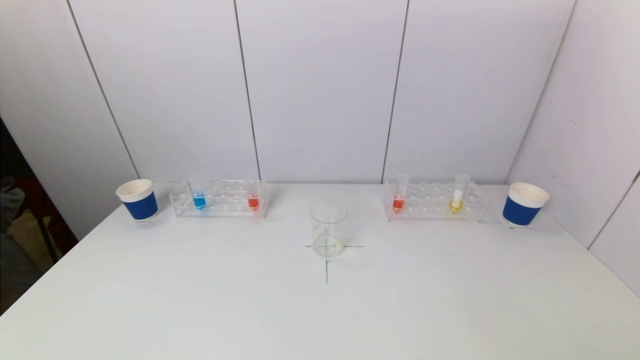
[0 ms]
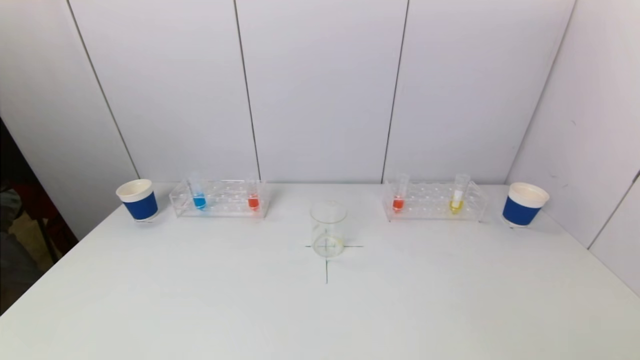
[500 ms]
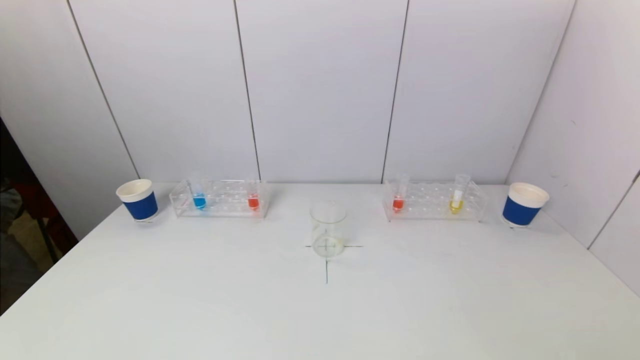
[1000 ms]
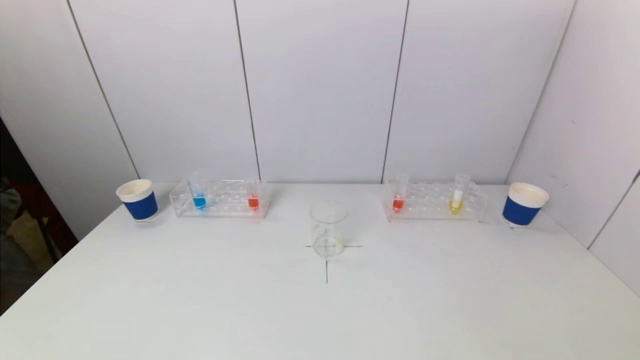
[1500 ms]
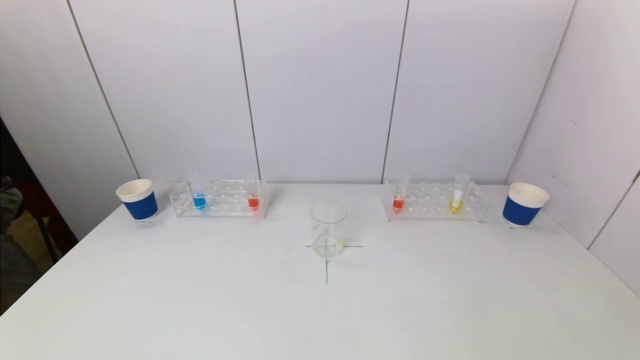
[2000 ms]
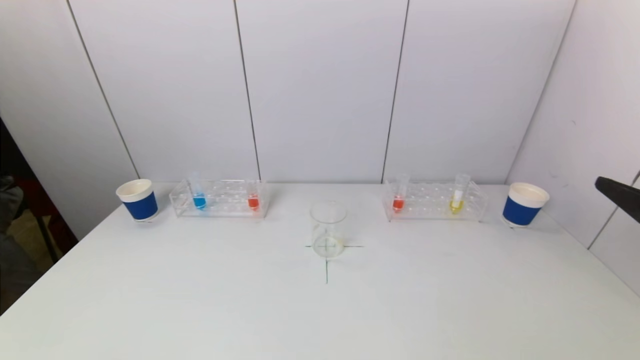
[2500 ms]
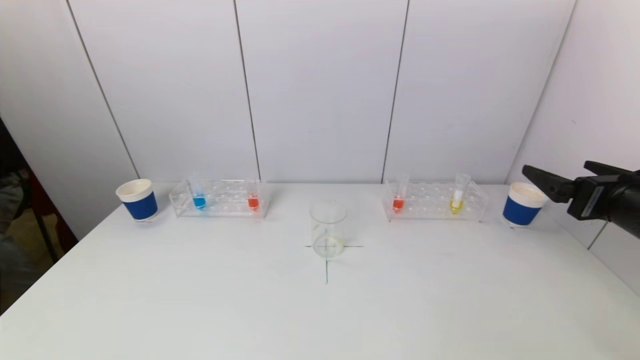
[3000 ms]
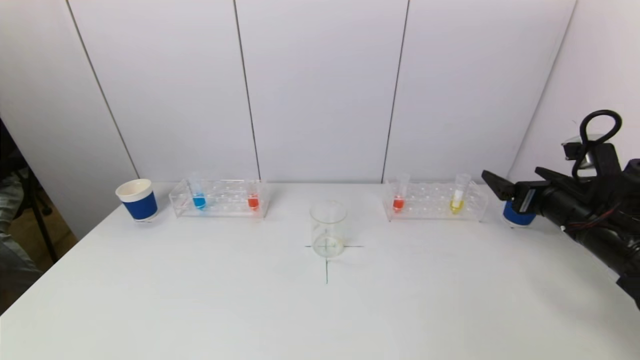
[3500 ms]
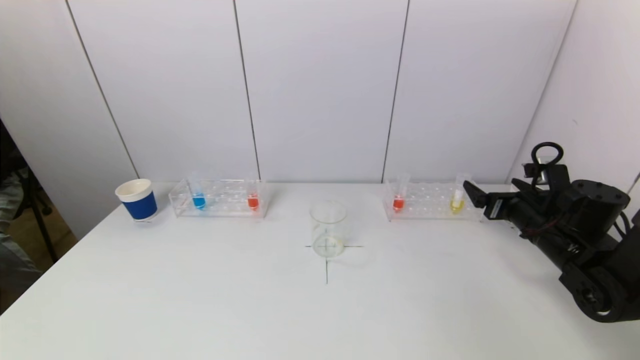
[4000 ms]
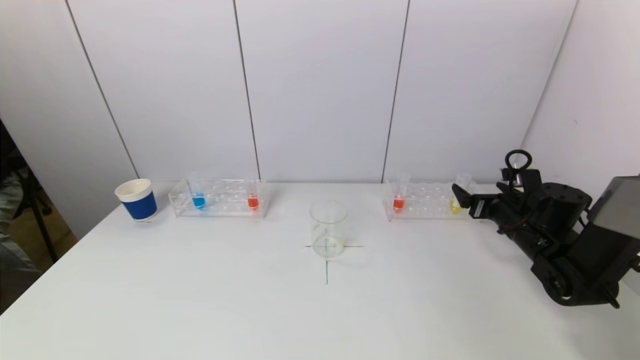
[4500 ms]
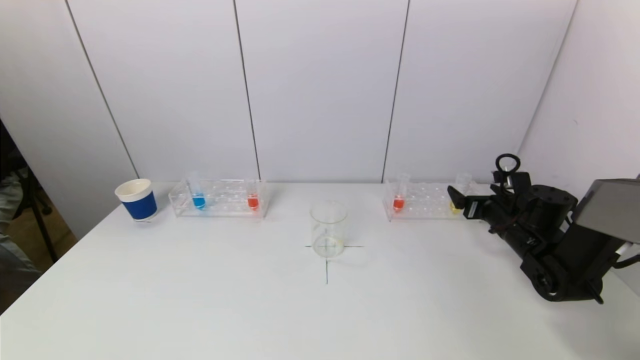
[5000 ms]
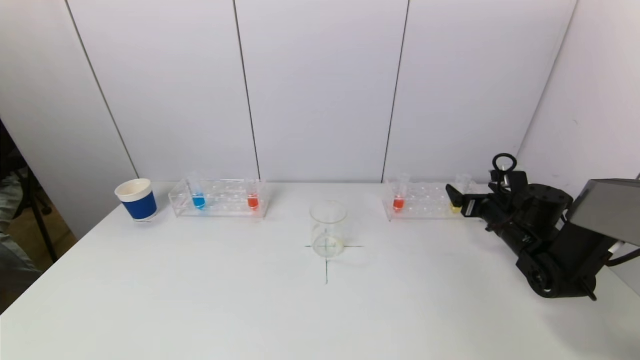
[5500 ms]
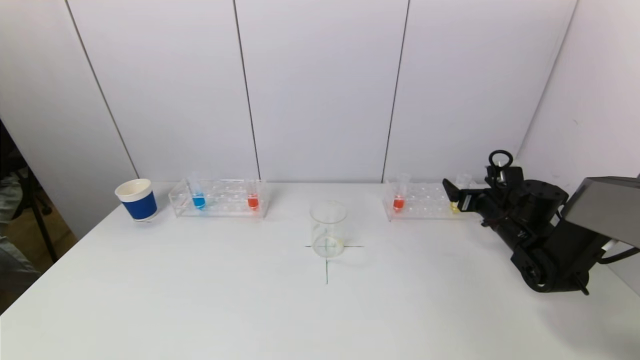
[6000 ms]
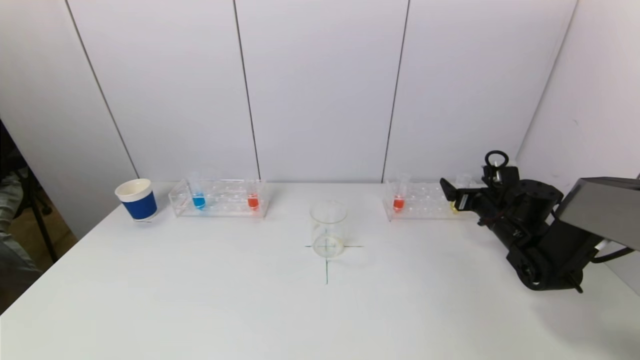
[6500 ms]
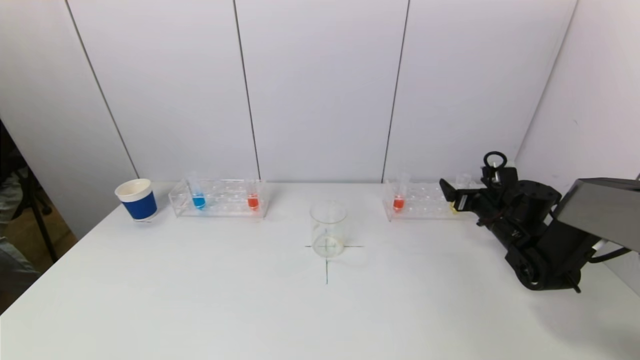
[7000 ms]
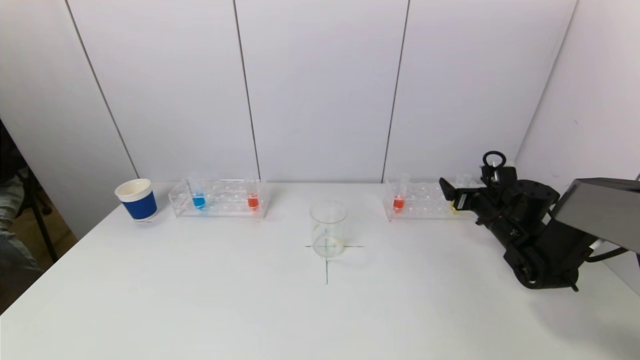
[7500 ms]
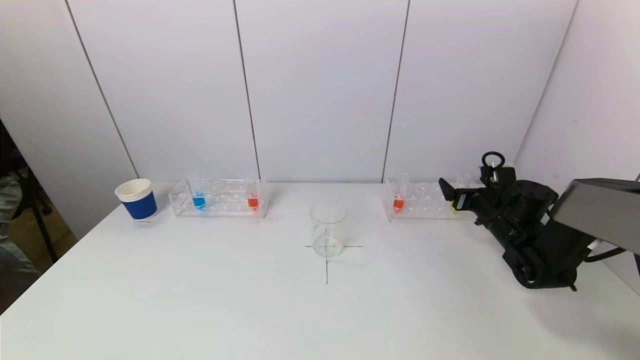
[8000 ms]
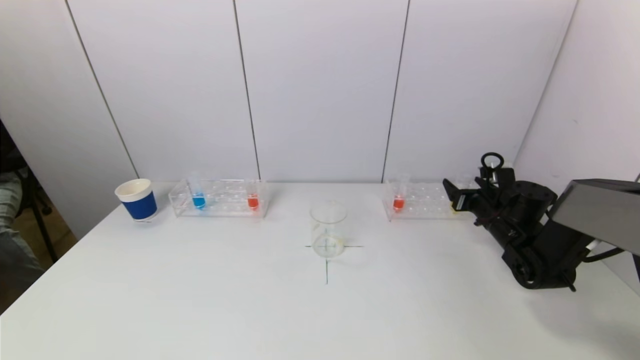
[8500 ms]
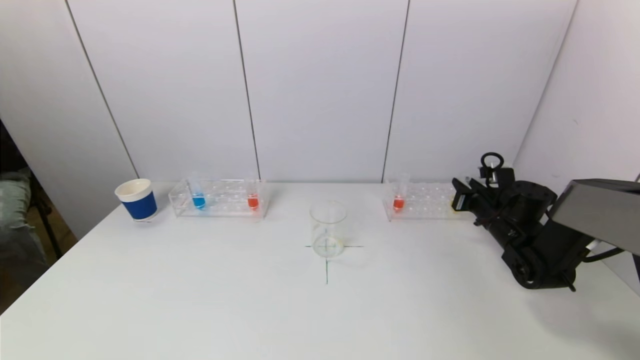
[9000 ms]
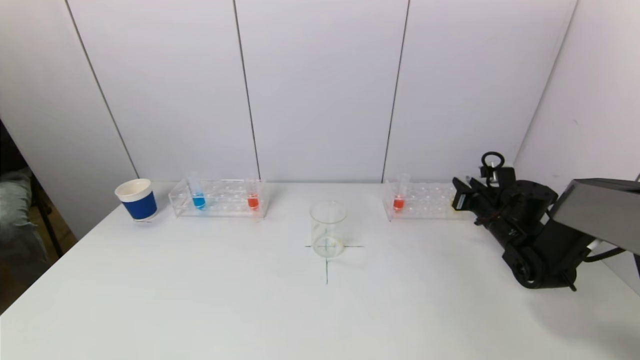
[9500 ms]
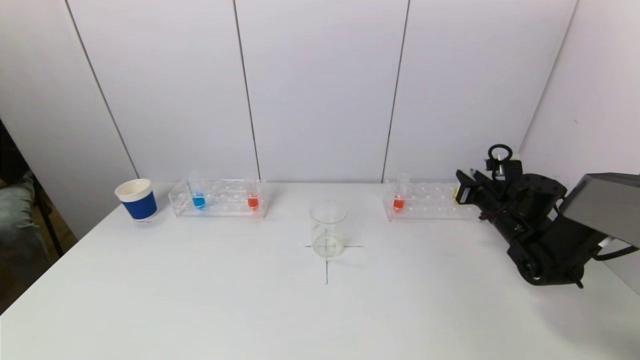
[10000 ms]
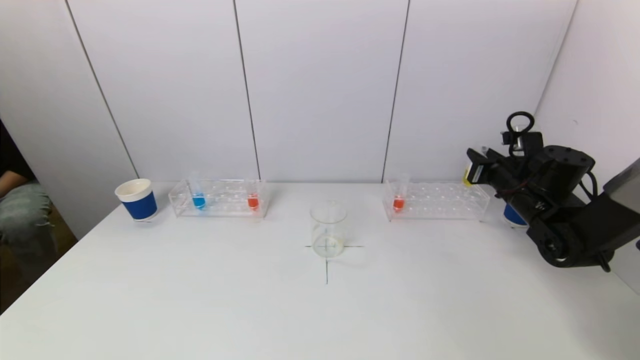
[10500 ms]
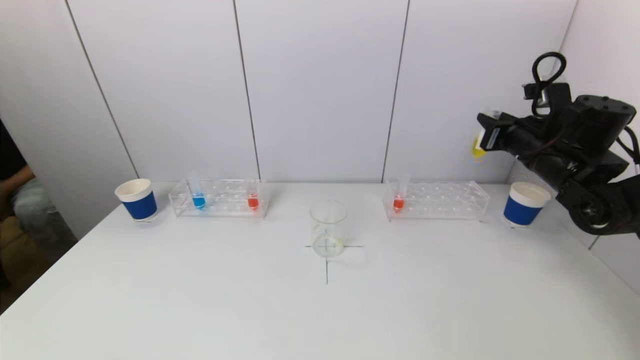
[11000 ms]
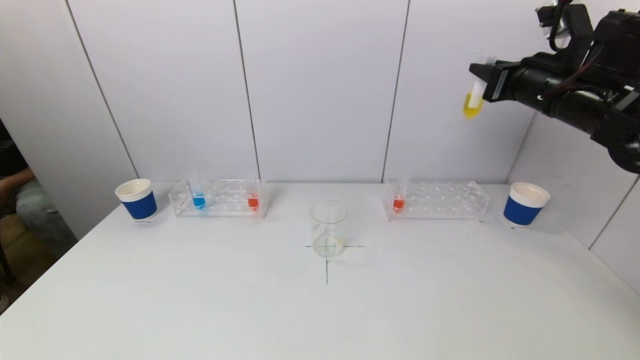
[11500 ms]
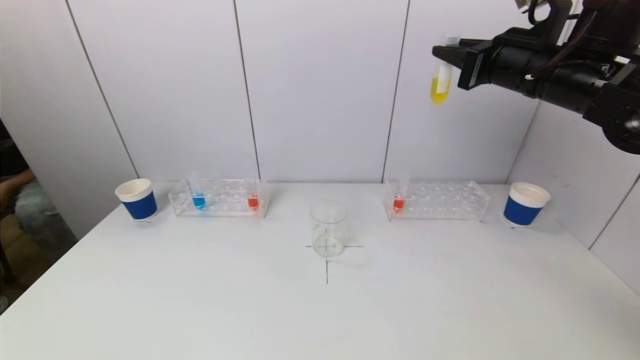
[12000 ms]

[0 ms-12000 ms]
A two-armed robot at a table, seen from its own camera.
Task of the whole recording: pick up a test tube with pigment on left test tube rack and a test tube with pigment on right test tube rack by grippers and pour them into the beaker.
Step, 0 ms to 9000 ms: Grasp the yellow reagent with the right gripper.
2000 ms to 4000 ms: The right gripper goes roughly 35 cm forward and downward.
4000 ms to 6000 ms: The right gripper heads forward, covering approximately 5 cm.
6000 ms to 8000 ms: The grippers move only a little.
8000 ms to 10000 ms: The right gripper closes.
10000 ms to 12000 ms: The right gripper travels upward by some 25 cm.

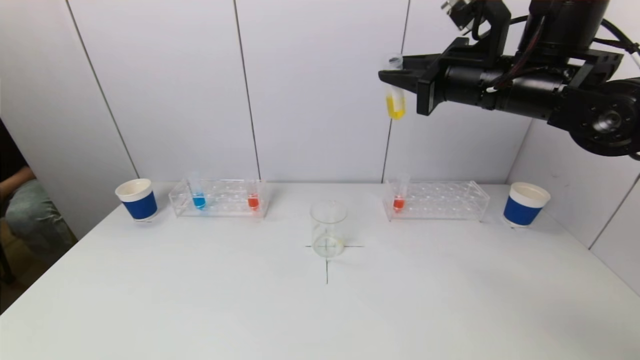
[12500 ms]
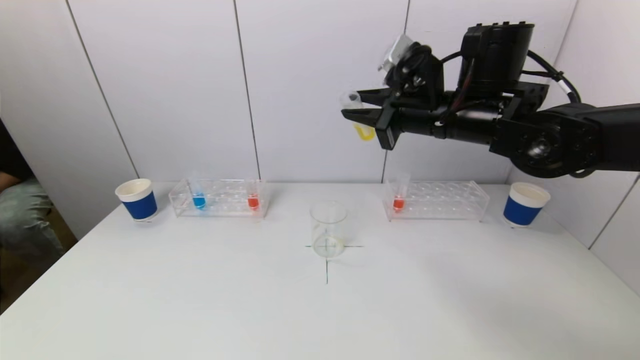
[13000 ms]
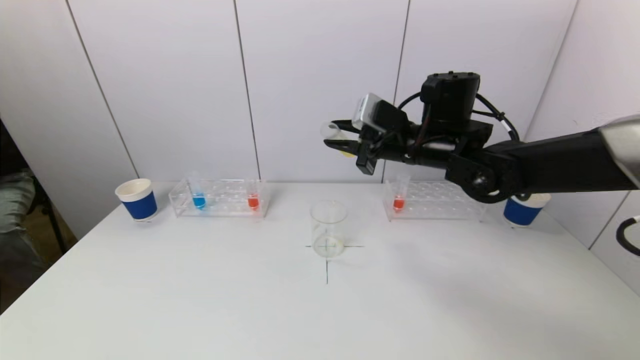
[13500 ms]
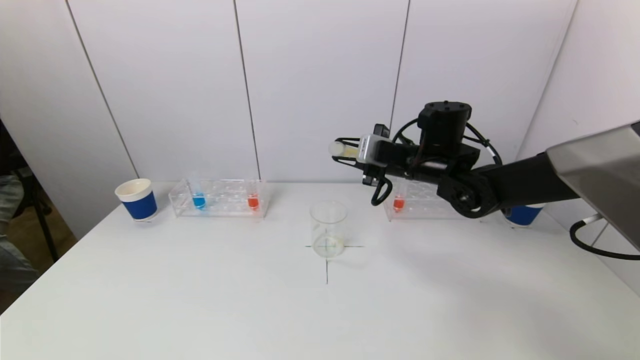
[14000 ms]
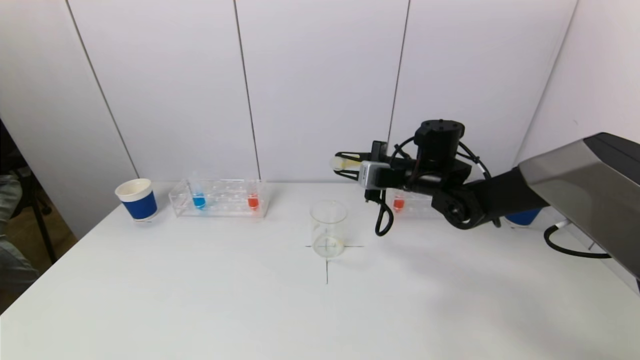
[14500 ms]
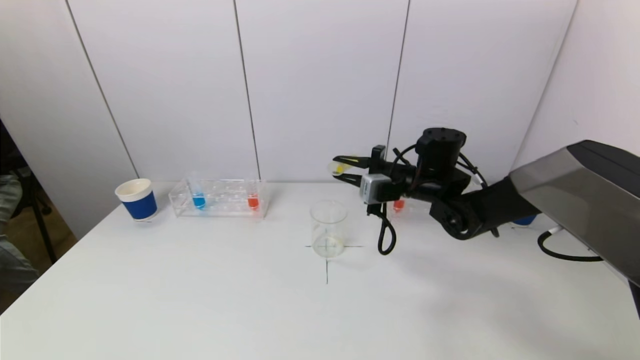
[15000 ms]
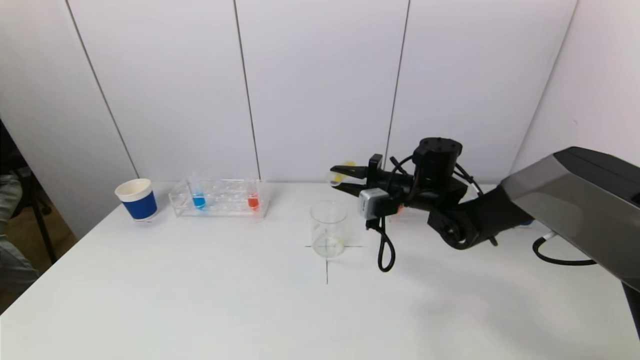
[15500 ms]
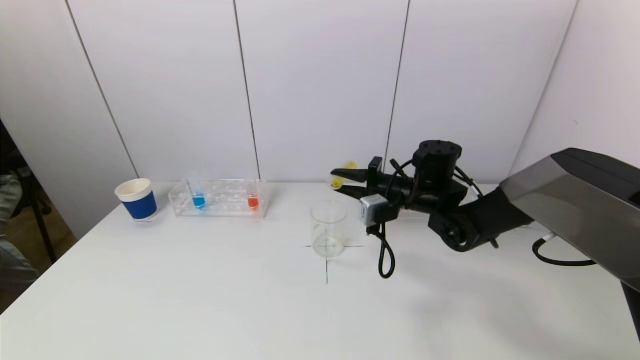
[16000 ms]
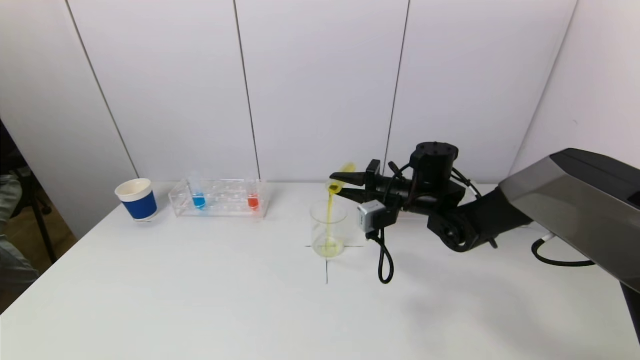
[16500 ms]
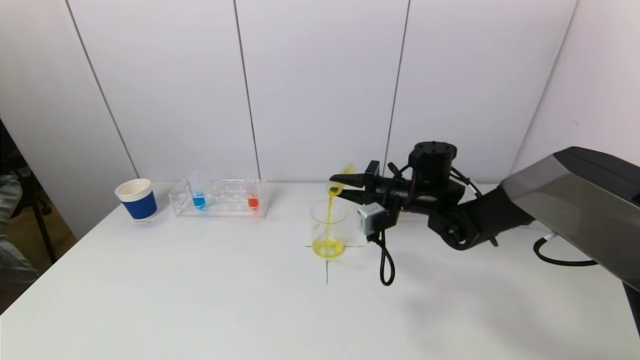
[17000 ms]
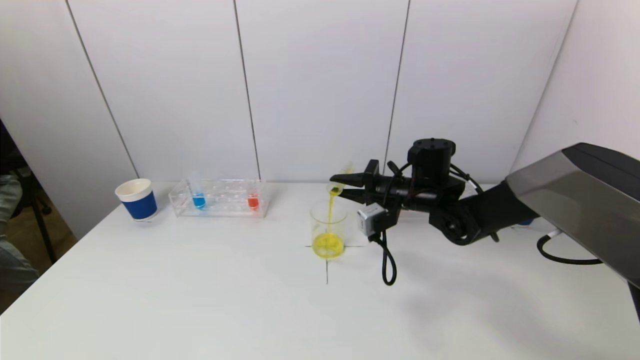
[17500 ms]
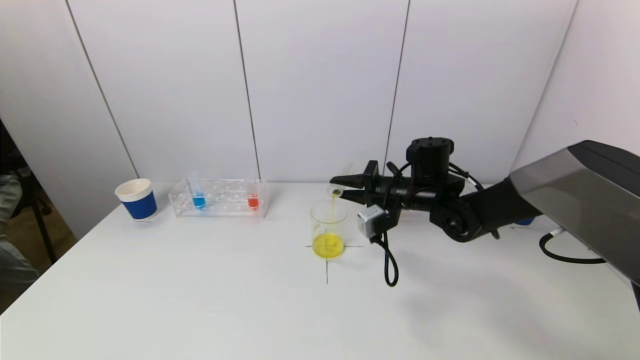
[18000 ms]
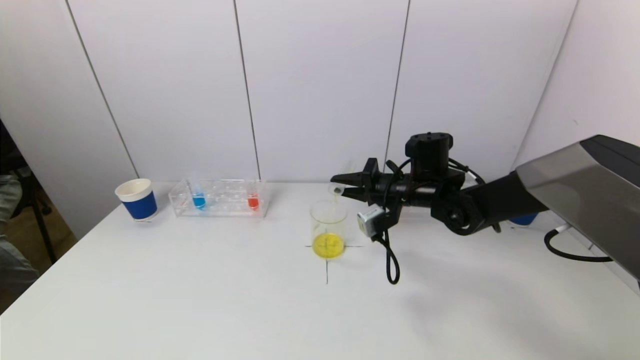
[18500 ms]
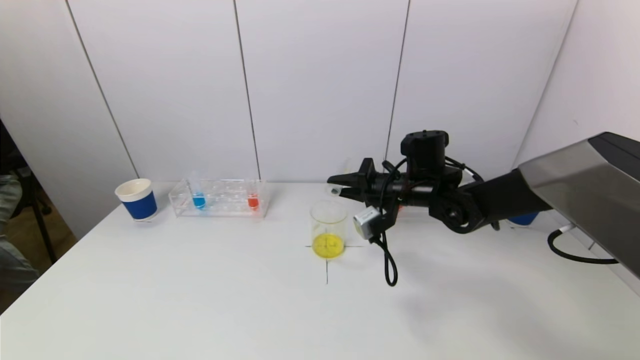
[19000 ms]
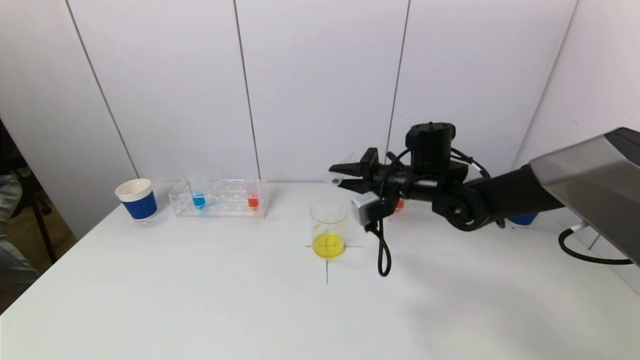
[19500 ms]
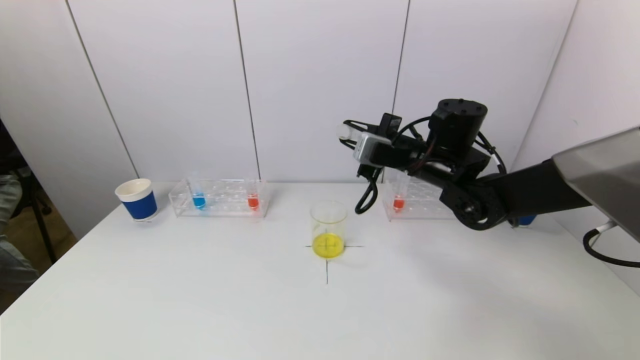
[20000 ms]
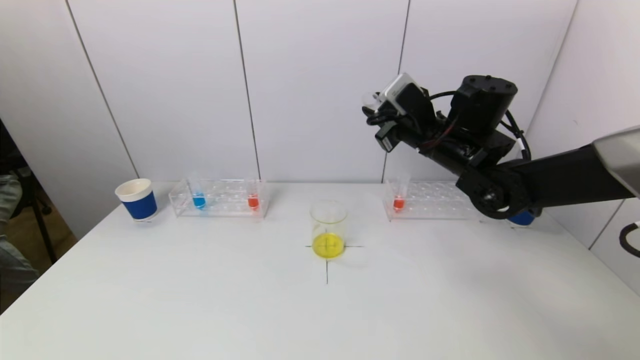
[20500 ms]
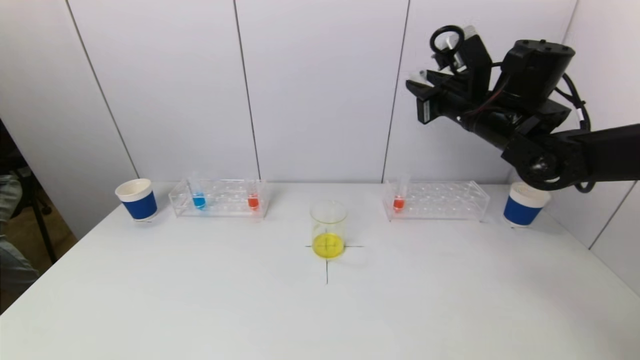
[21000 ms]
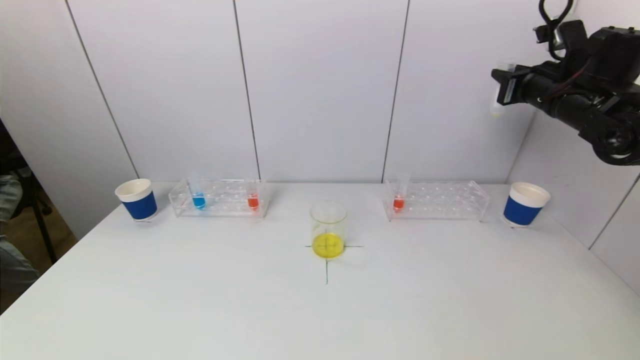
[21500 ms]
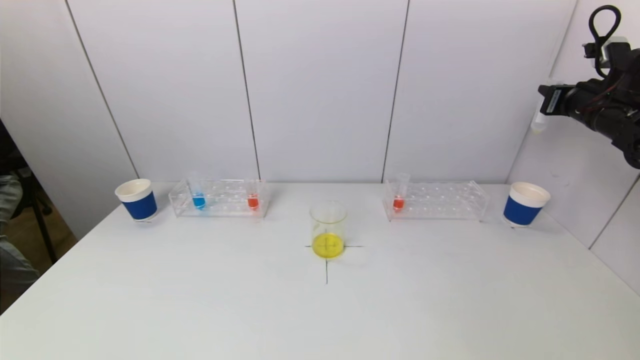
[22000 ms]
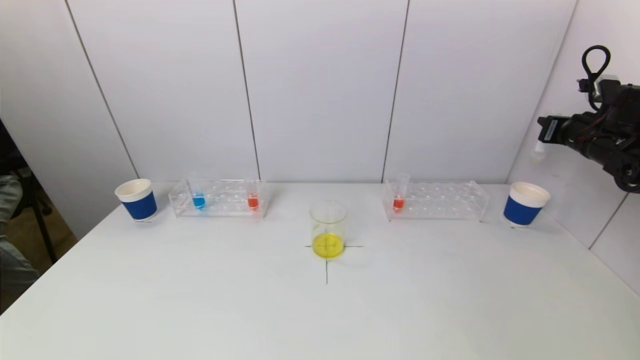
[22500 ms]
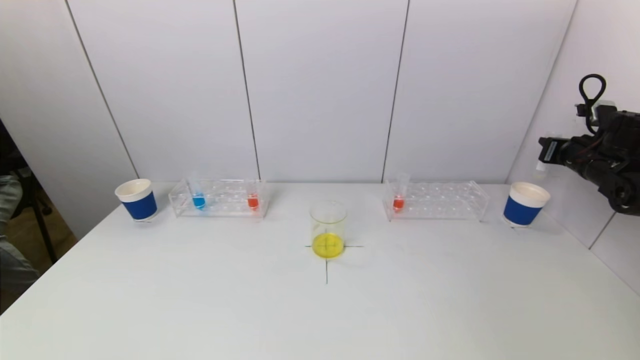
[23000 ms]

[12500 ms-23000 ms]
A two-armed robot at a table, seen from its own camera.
Task of the whole recording: pick up a test tube with pigment on left test tube rack and a test tube with pigment on right test tube rack by grippers and pour them into the beaker.
Step, 12500 ms to 19000 ms: Pour the yellow reagent into the graduated cylinder with the right gripper.
12500 ms to 14500 ms: The right gripper moves downward and forward, about 20 cm.
16500 ms to 19000 ms: The grippers stay close to where they were, moving slightly.
19000 ms to 21000 ms: The right gripper shifts approximately 15 cm upward and to the right.
21000 ms to 23000 ms: The right gripper travels to the right and downward by roughly 25 cm.
